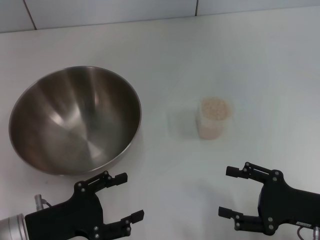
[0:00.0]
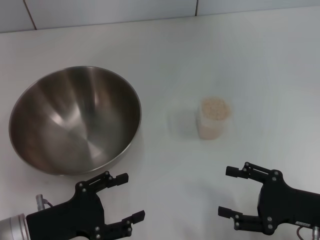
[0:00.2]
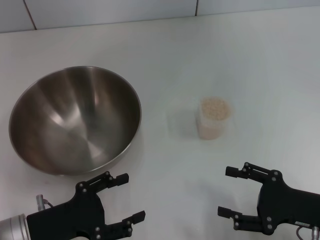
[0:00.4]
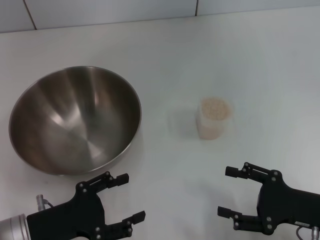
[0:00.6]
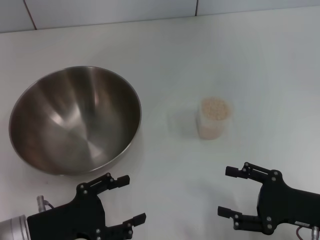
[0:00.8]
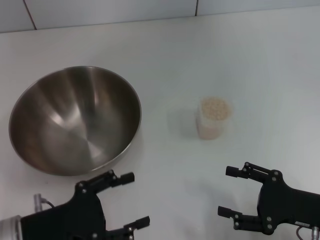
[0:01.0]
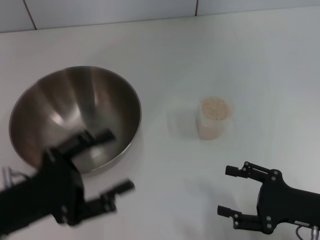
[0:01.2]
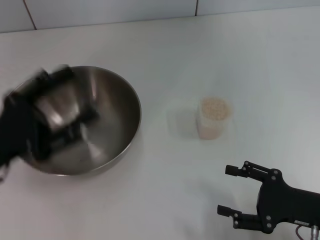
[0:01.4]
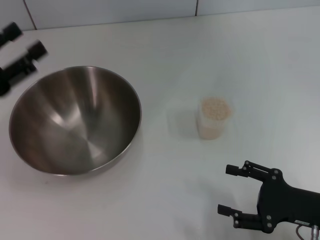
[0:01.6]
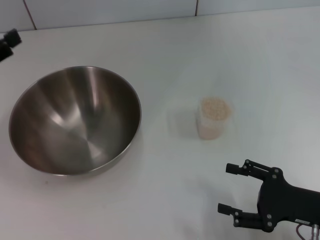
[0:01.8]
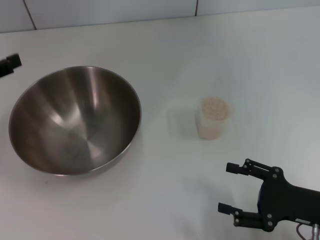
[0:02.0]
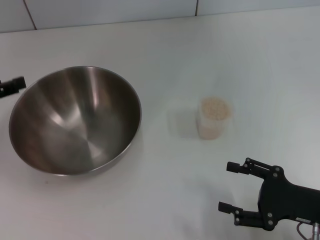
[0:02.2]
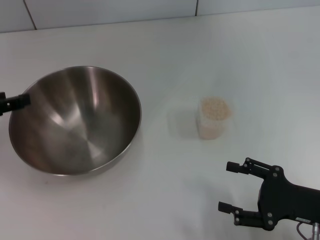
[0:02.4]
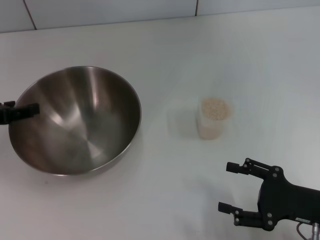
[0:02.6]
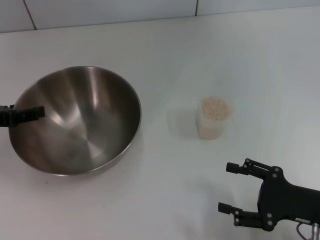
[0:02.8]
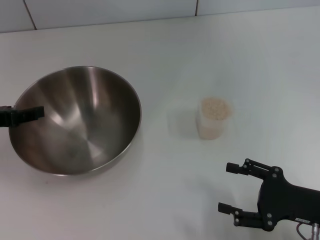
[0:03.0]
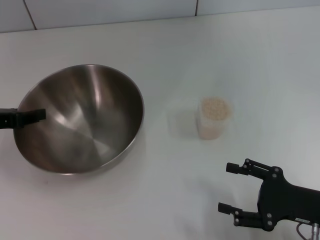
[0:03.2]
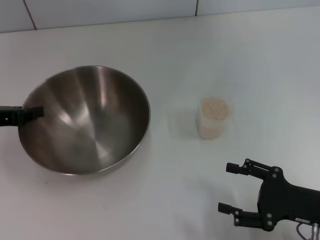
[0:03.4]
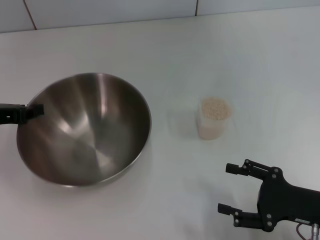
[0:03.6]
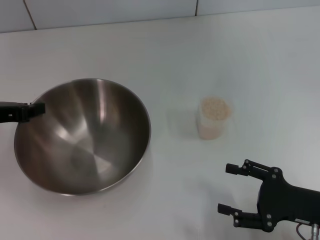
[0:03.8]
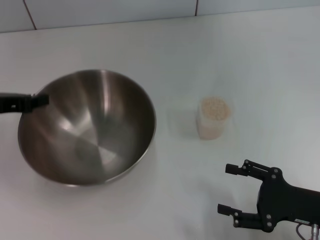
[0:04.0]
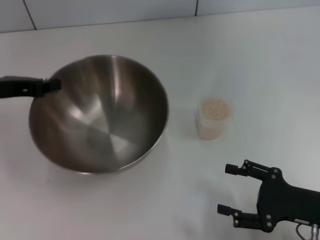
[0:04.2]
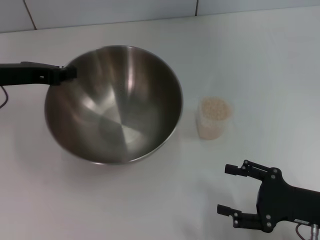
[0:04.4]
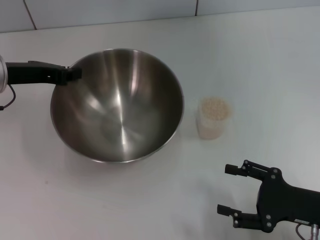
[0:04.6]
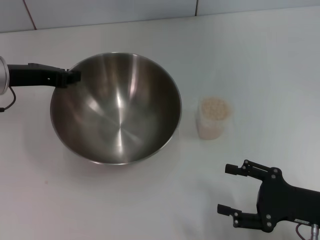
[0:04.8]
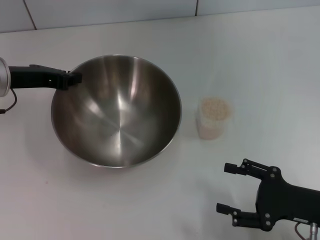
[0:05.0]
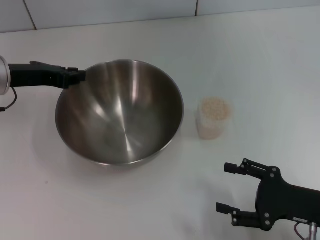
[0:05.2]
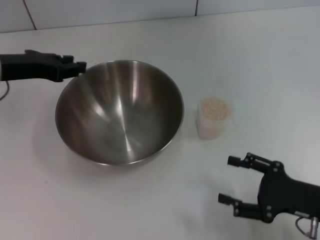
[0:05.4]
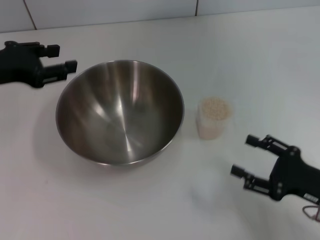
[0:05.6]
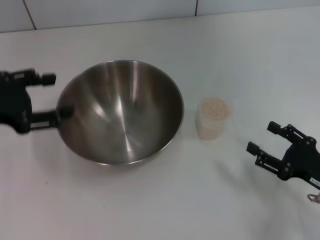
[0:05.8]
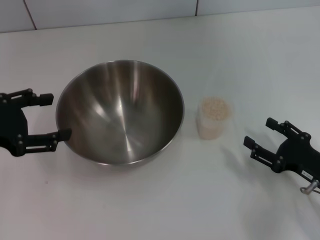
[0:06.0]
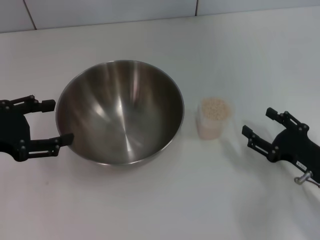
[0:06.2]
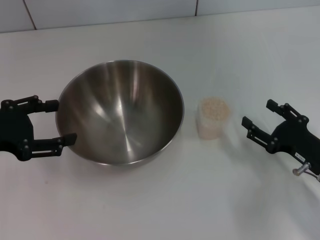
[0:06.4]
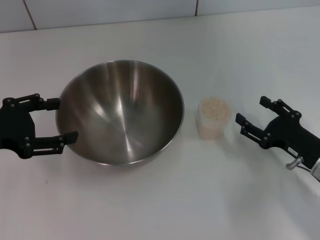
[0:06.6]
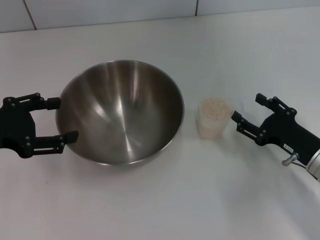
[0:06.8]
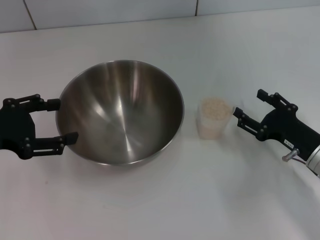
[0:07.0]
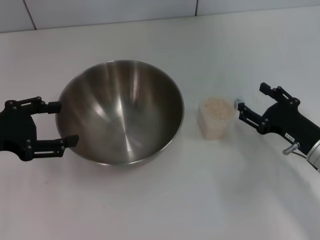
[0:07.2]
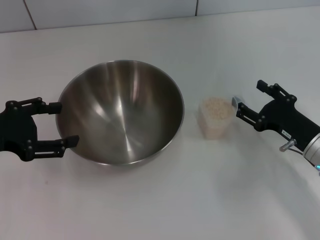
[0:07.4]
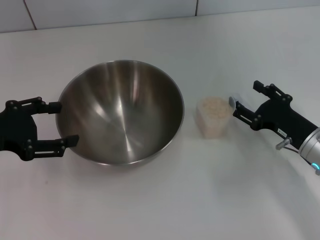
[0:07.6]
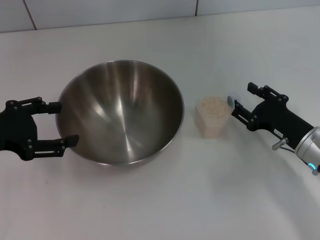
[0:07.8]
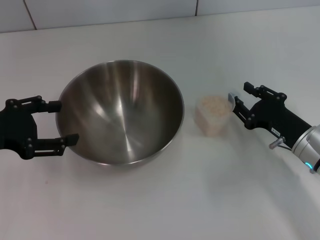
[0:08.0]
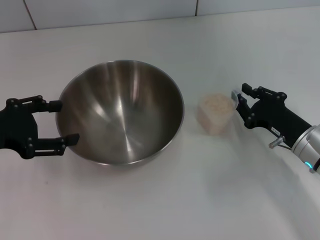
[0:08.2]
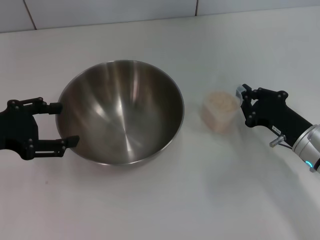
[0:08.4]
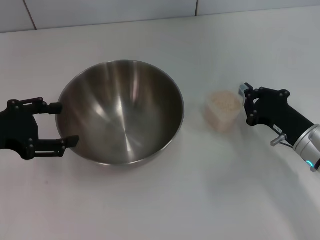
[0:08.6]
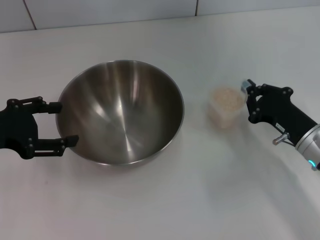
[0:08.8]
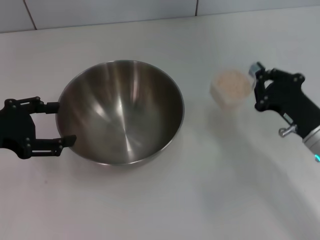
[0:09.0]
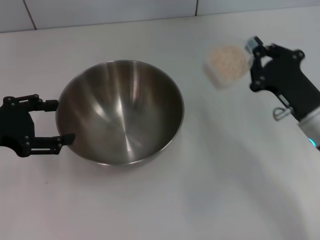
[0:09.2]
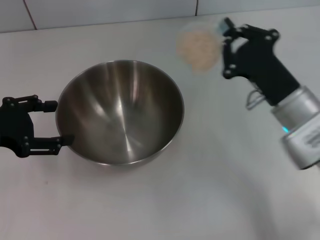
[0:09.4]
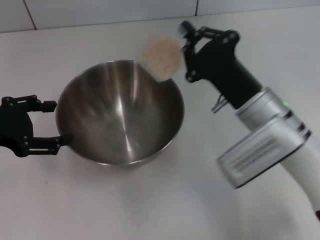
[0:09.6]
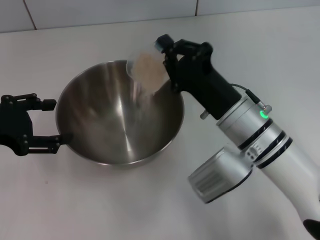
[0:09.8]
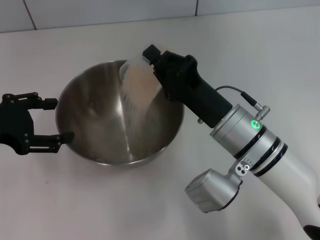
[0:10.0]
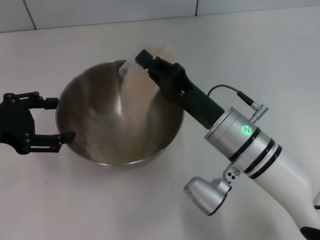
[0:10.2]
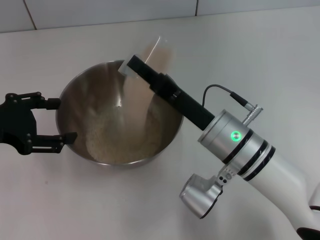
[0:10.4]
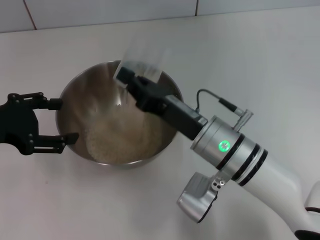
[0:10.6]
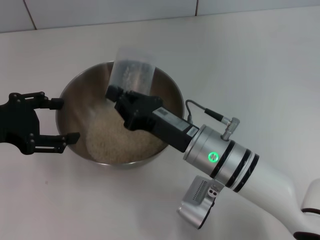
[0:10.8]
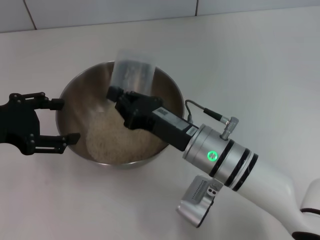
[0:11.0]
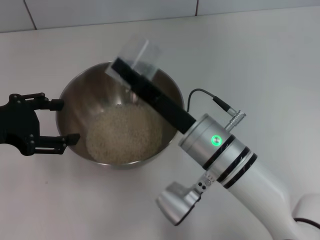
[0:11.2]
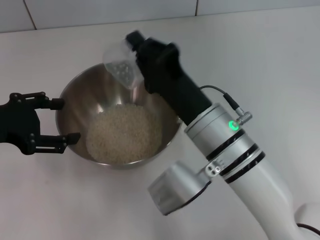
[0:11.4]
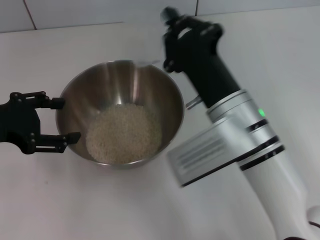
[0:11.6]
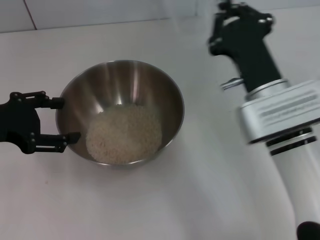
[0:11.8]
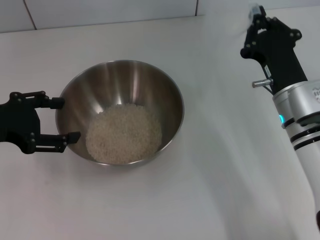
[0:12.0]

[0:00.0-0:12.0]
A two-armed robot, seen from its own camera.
Task of the whole recording: Place the bowl in the middle of the table with one hand and pour the rice from the grain cup into it with the other hand.
Step, 0:00.0 to 0:04.0: Pick up the bowl with the left gripper.
Step, 0:04.2 to 0:05.4: Place the bowl in the center of view with the left gripper.
Step, 0:05.8 to 0:09.2: Pick up the cup with rice in it with the right gripper.
Step, 0:09.4 to 0:11.6: Pour the rice from the cup into the bowl with the right gripper.
0:00.0 to 0:01.6: The left gripper is displaced upward, forward and to the left by about 15 cm.
0:03.0 to 0:04.4: The left gripper shifts roughly 10 cm to the right and forward, and closes.
0:04.4 to 0:06.0: The left gripper goes approximately 10 cm backward, and opens.
0:06.0 to 0:07.6: The right gripper is displaced forward by roughly 5 cm.
0:07.6 to 0:09.0: The right gripper closes.
0:09.0 to 0:10.4: The right gripper is displaced to the left by about 15 cm.
0:10.4 to 0:12.0: The right gripper goes about 10 cm to the right.

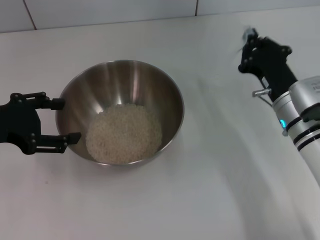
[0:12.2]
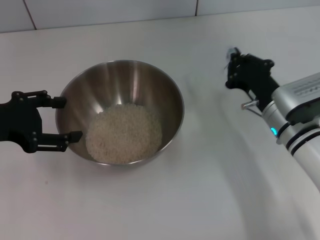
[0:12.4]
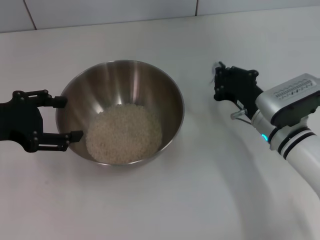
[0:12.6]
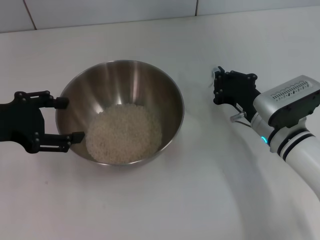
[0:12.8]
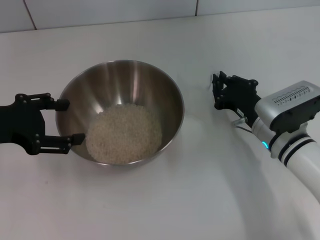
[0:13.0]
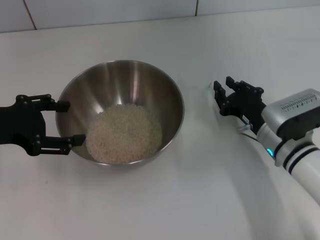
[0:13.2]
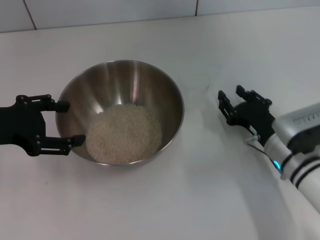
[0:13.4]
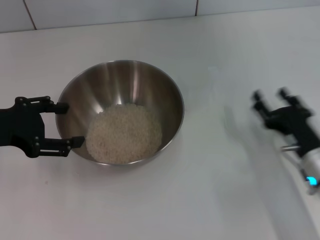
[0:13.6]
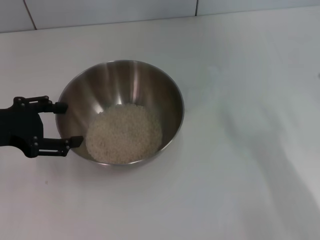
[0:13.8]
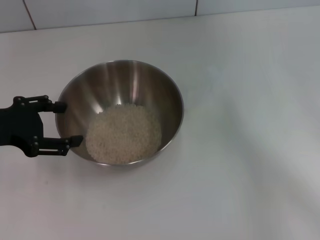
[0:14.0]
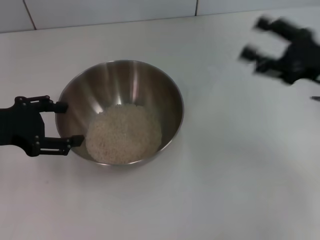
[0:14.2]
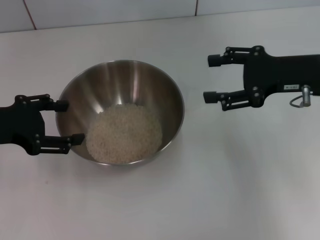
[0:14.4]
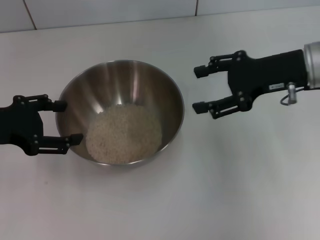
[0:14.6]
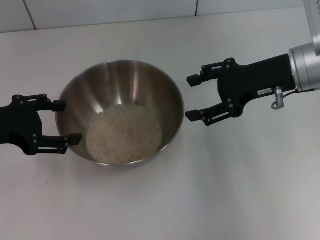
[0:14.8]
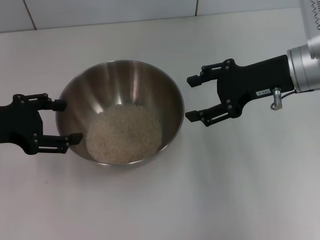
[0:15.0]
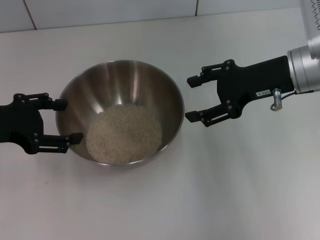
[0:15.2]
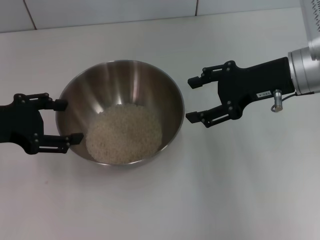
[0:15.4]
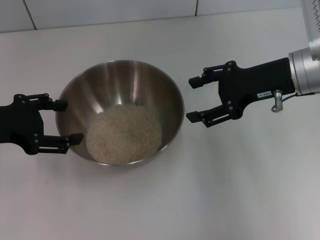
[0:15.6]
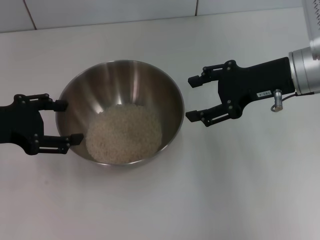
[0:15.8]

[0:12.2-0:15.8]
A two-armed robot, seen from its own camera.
Task of the whole recording: Place the bowl in the middle of the table with one hand and pour the rice from the grain cup into it with the other hand.
Step, 0:12.2 to 0:13.4: Place the cup on the table with the right gripper.
0:12.2 to 0:14.0: The right gripper is displaced to the right and backward by roughly 15 cm, and opens.
0:14.0 to 0:15.8: The right gripper heads to the left, forward and upward, covering approximately 15 cm.
